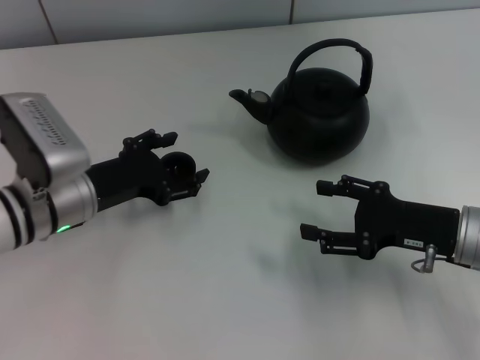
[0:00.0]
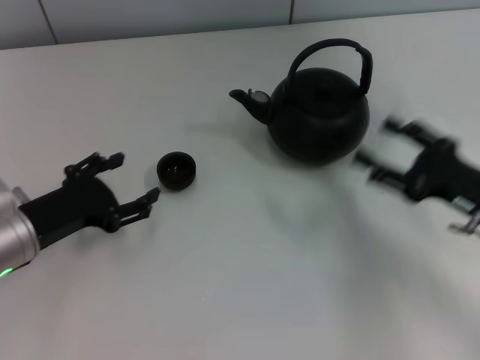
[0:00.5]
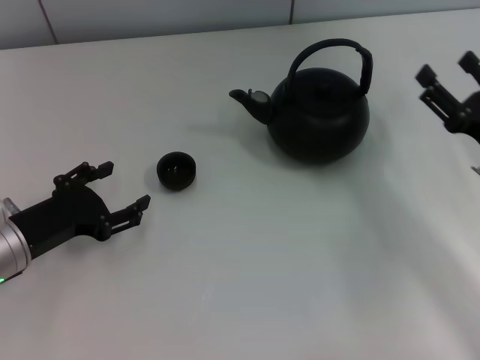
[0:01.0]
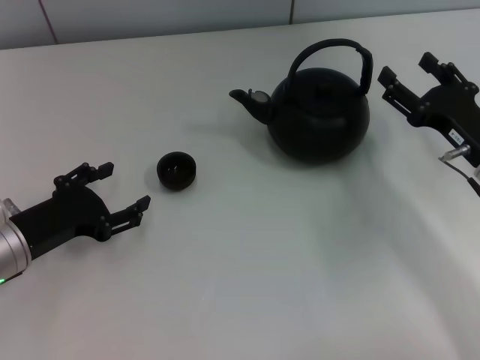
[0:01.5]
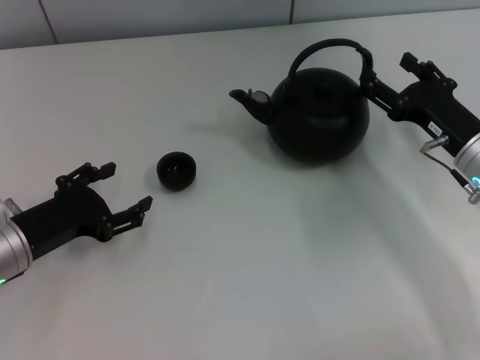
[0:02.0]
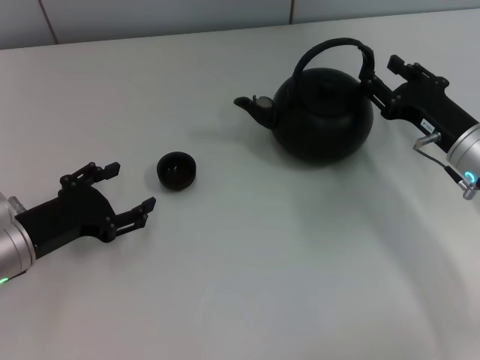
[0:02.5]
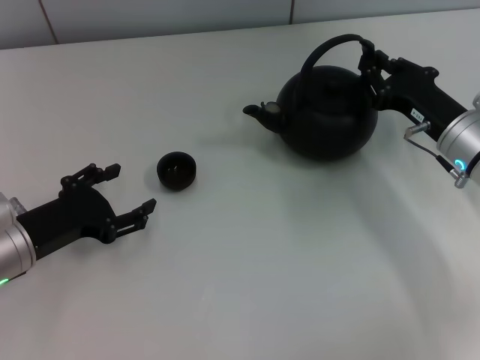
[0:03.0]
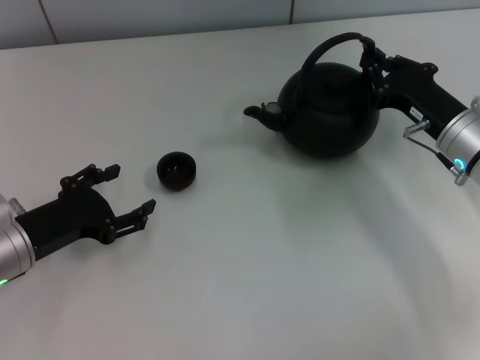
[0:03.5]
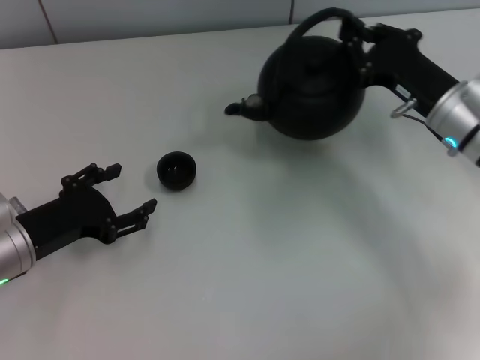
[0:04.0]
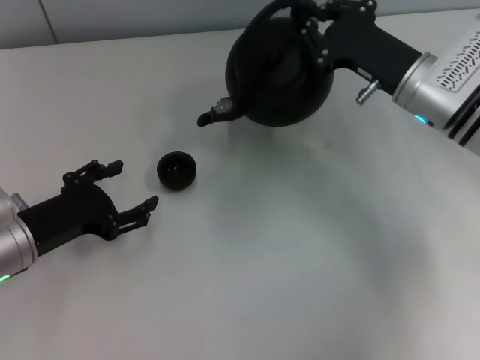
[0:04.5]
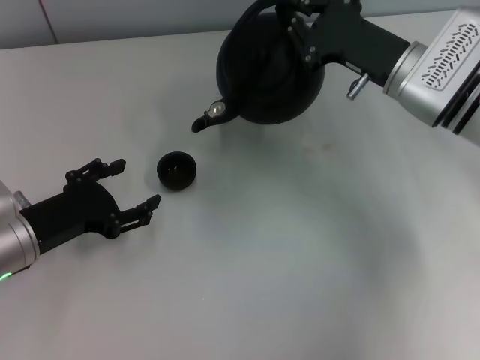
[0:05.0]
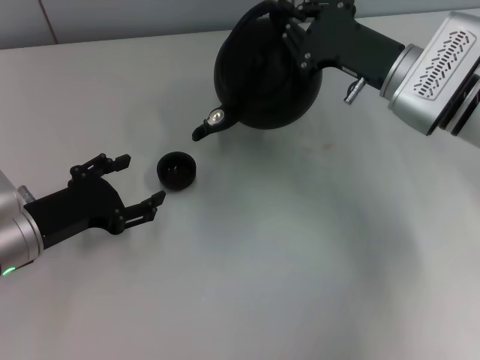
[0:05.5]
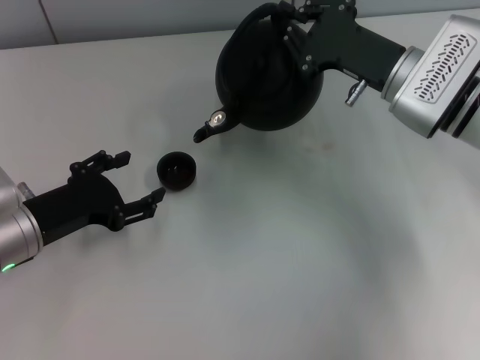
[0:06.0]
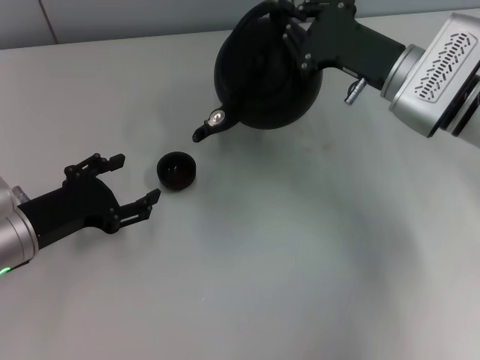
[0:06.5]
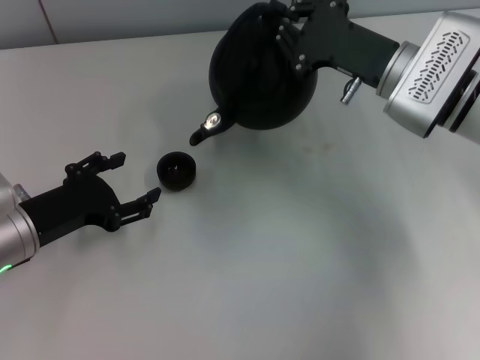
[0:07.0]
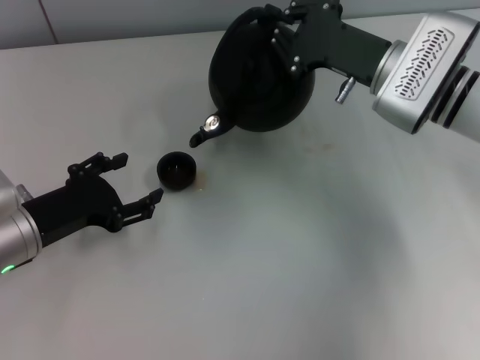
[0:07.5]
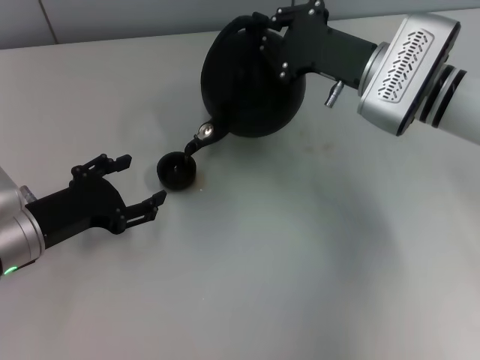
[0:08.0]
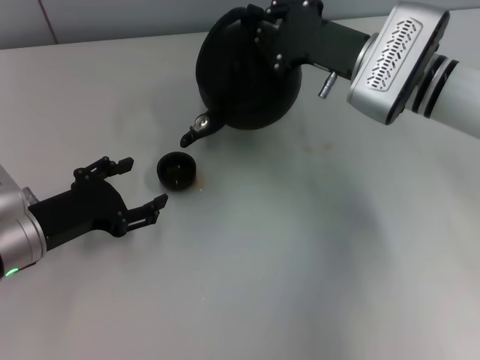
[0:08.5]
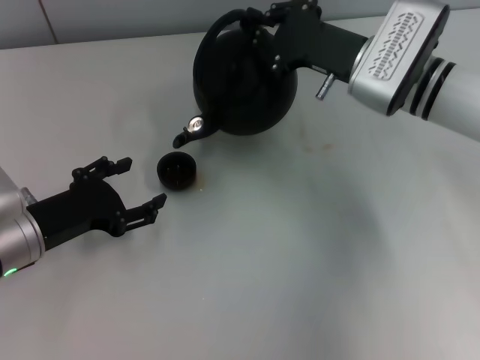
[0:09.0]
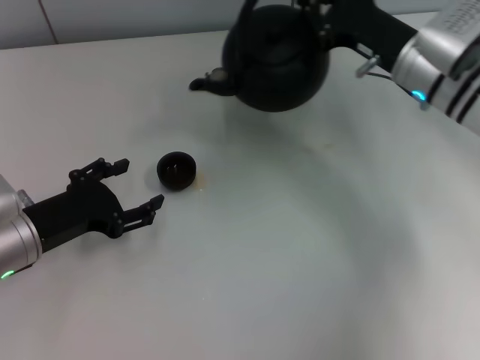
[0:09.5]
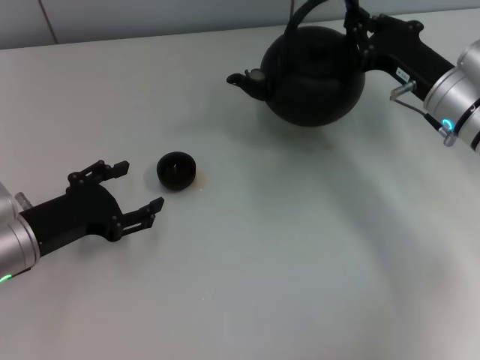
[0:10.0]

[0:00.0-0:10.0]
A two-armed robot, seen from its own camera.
Task of the whole recording: Grasp the handle of the teapot with one hand and pour tea into the teacup.
Step, 0:01.0 to 0:04.0: Pick up the teapot with the right gripper.
0:00.0 to 0:02.0: The left gripper is displaced to the left and backward by approximately 10 cm; the right gripper heads forward, covering some 5 cm.
0:02.0 to 0:04.0: The right gripper moves approximately 5 cm, and closes.
0:04.0 to 0:06.0: The right gripper ends up roughly 5 cm from where it was.
0:06.0 to 0:08.0: The grippers make only small movements.
0:08.0 to 0:10.0: The right gripper goes approximately 5 cm to the right.

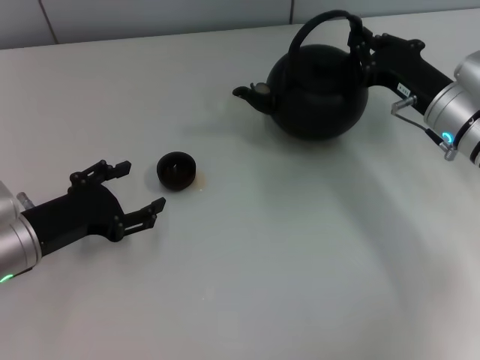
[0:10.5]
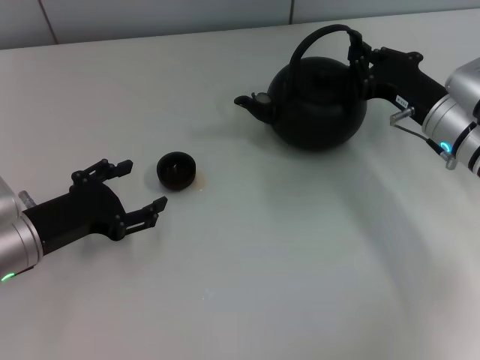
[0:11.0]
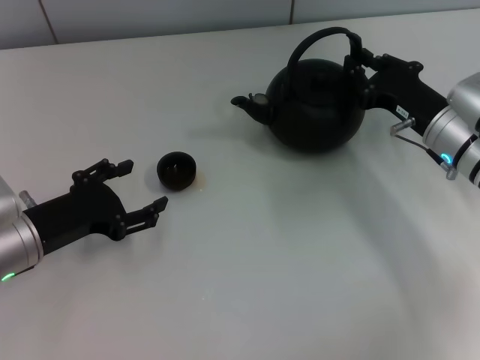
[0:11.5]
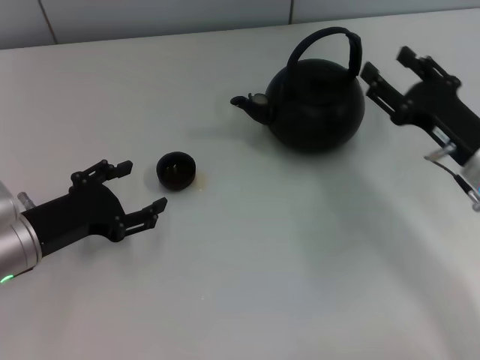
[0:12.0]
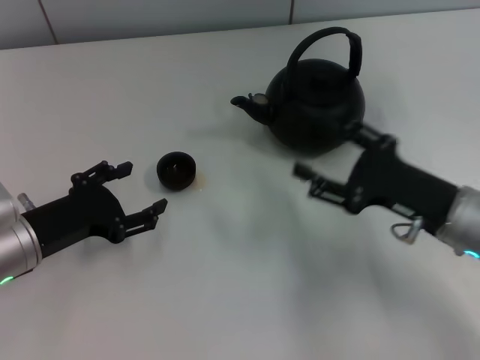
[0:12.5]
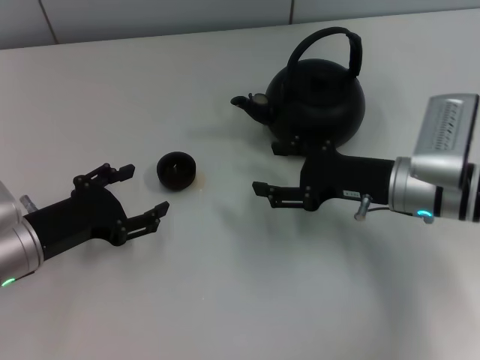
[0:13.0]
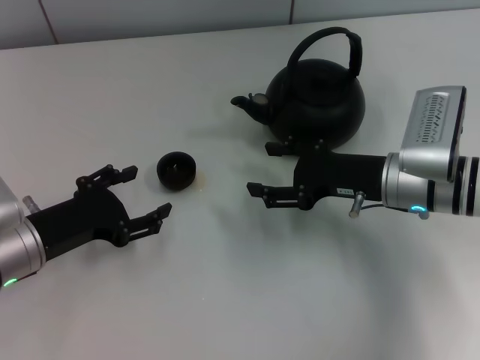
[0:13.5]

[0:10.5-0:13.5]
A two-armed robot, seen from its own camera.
Task of the whole recording: Grasp the handle of the teapot with one hand and pour tea into the teacup.
Step, 0:10.5 to 0:12.0: Put down the teapot with the right gripper.
0:10.5 to 0:12.0: The right gripper travels backward by approximately 5 cm, and opens up.
0:12.0 to 0:13.5: The right gripper is displaced to the left by some 5 cm.

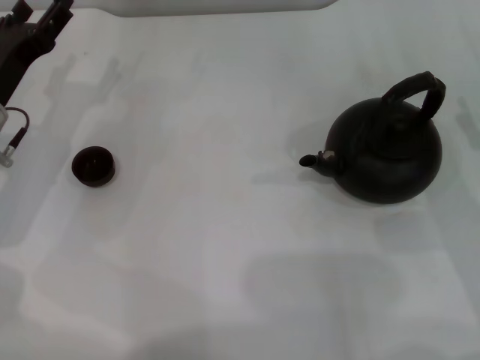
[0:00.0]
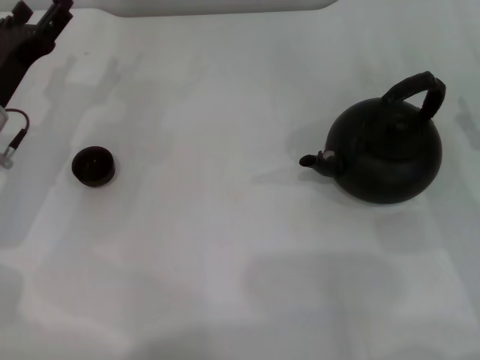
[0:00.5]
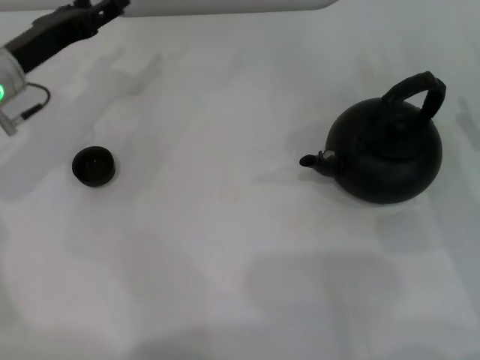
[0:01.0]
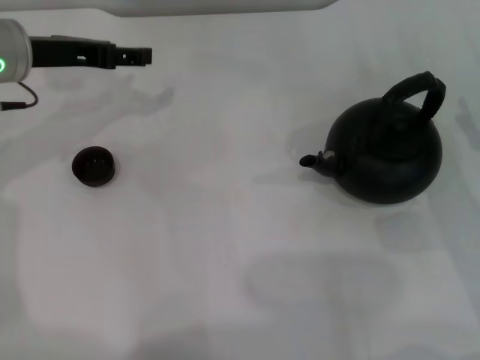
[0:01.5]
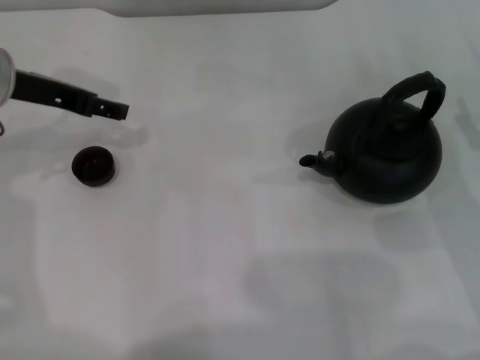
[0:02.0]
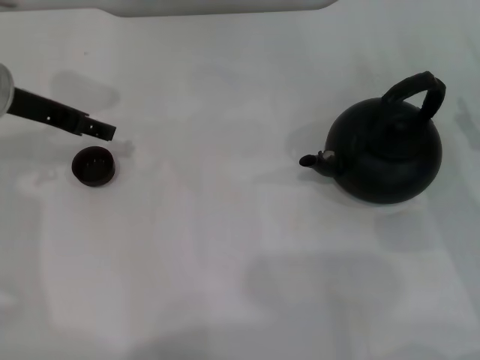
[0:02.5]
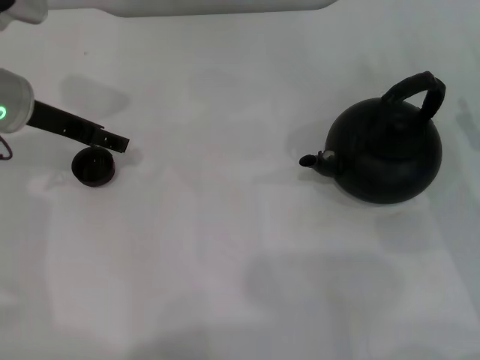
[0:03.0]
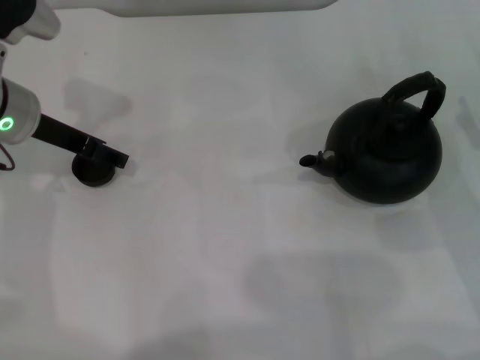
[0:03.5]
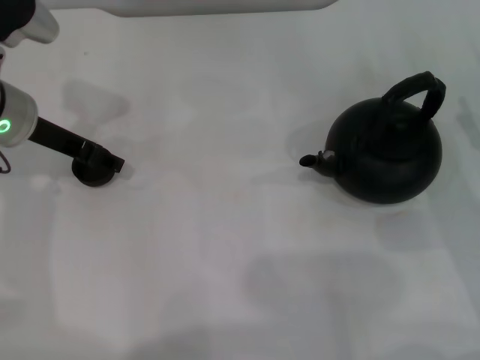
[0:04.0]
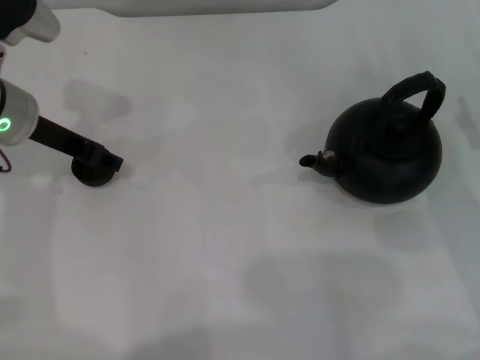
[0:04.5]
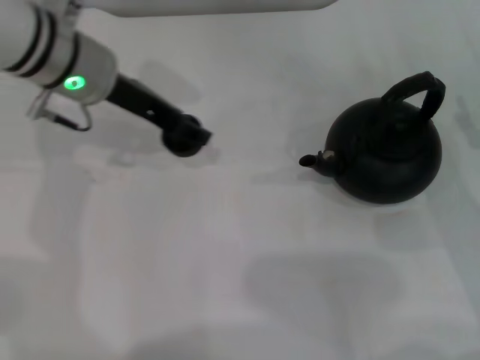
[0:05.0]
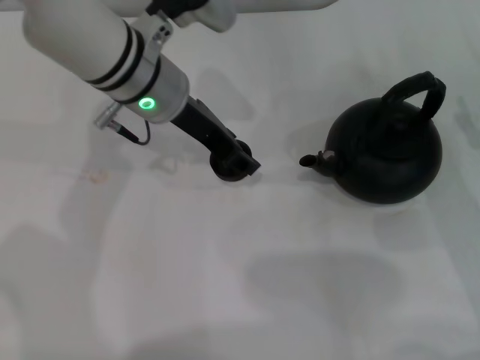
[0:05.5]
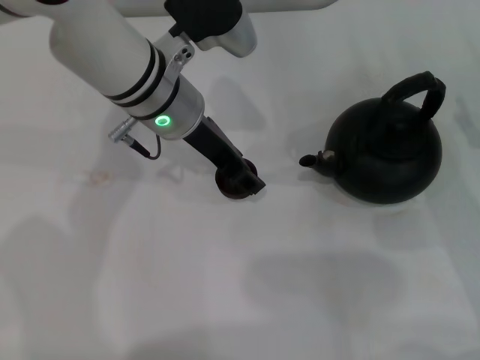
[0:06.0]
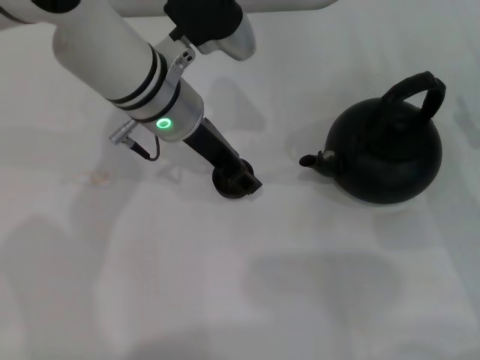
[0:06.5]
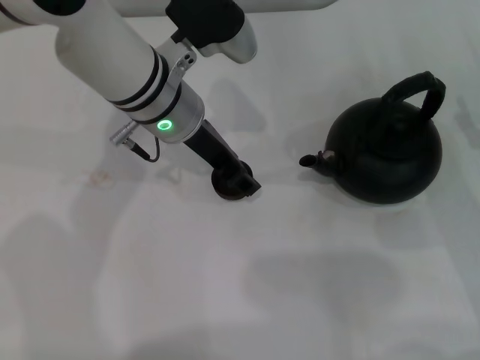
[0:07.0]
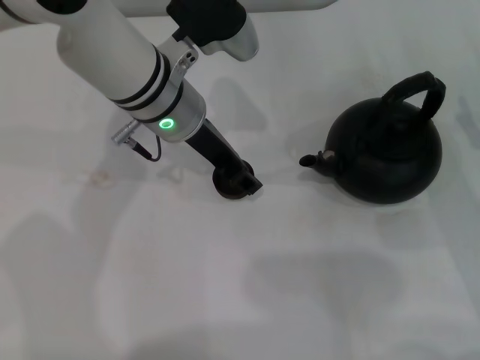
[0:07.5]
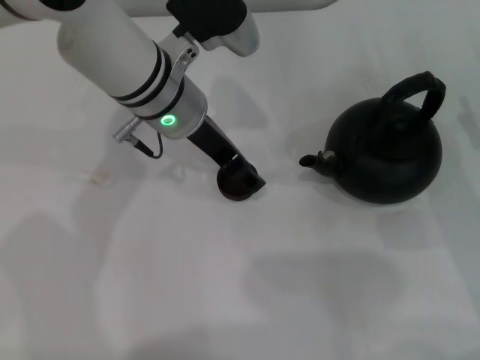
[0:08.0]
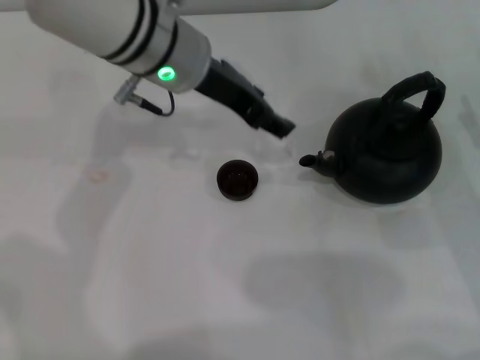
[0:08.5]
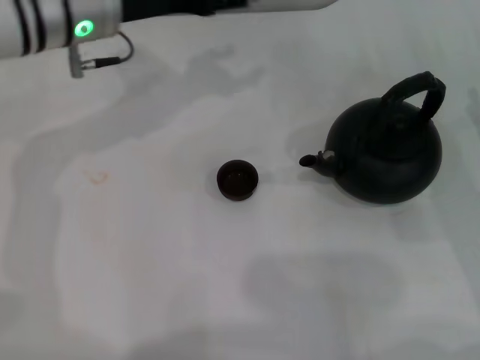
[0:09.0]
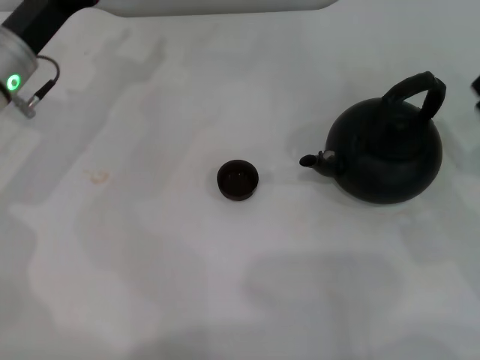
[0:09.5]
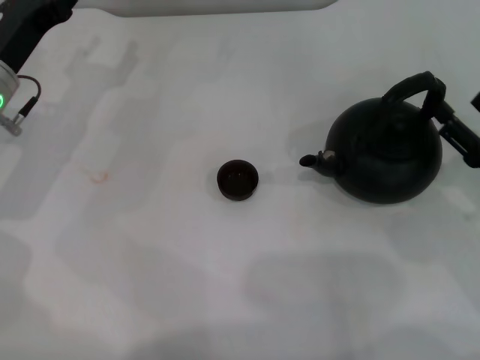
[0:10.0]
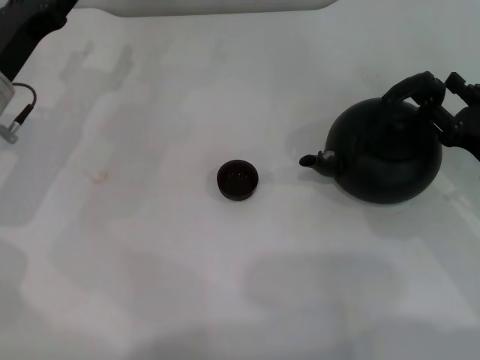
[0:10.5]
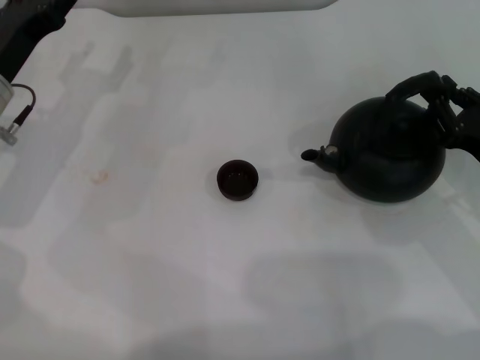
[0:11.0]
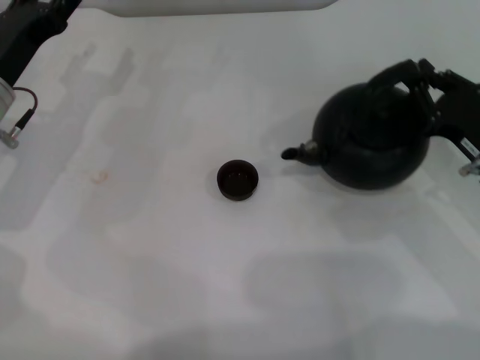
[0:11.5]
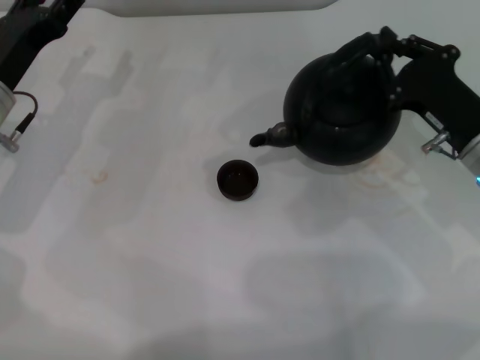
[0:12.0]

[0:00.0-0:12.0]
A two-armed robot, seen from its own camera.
Task of the whole recording: Grasp the handle of the teapot with one hand and pour tea into the teacup.
Step, 0:00.0 to 0:04.5: Pick up the teacup with the left gripper.
Step, 0:05.0 to 0:08.0: Place the teacup in the center of view with the left gripper.
Step, 0:08.5 to 0:12.0: Pick up the teapot with the right gripper.
0:00.0 to 0:02.0: The left gripper is displaced upward by approximately 10 cm.
0:02.0 to 0:04.0: The grippers make only small movements.
0:04.0 to 0:06.0: The left gripper is displaced to the right by roughly 15 cm, and closes its fingers.
0:06.0 to 0:08.0: The left gripper opens.
0:08.0 to 0:10.0: The left gripper heads to the left, covering about 20 cm.
0:10.0 to 0:12.0: The right gripper is displaced to the left and forward by roughly 10 cm, and closes.
